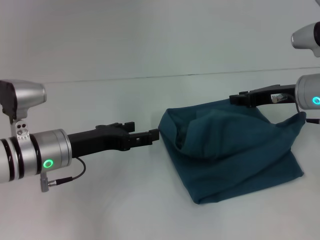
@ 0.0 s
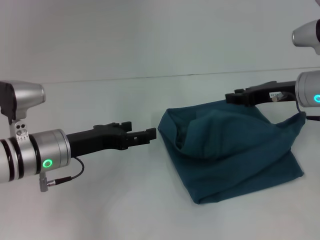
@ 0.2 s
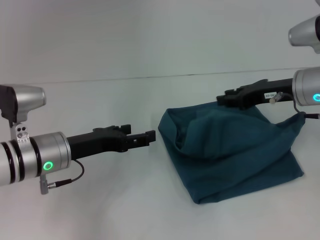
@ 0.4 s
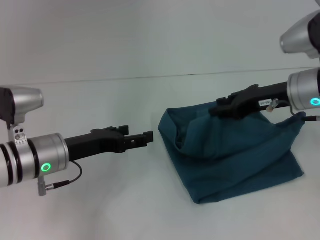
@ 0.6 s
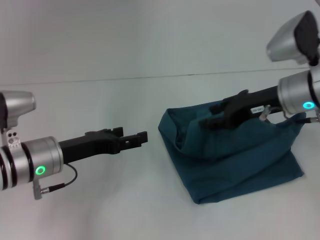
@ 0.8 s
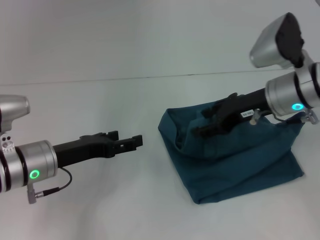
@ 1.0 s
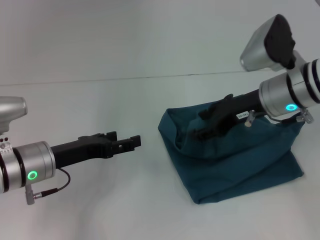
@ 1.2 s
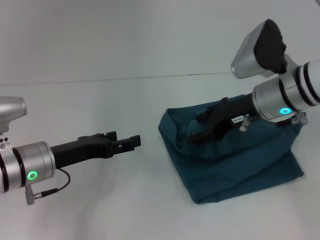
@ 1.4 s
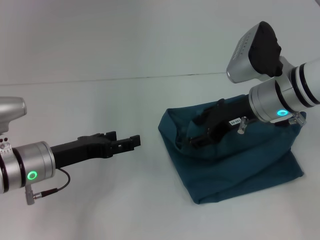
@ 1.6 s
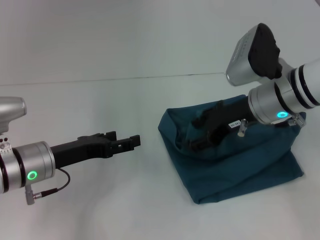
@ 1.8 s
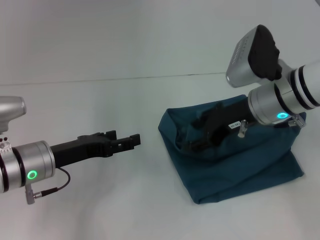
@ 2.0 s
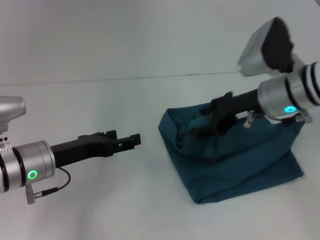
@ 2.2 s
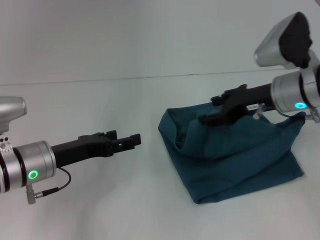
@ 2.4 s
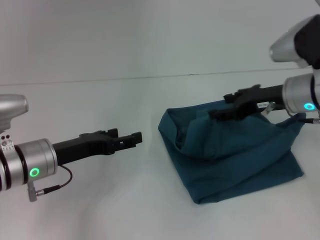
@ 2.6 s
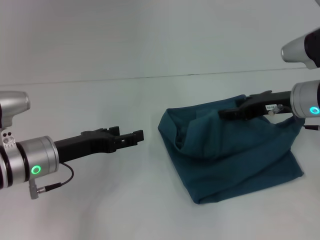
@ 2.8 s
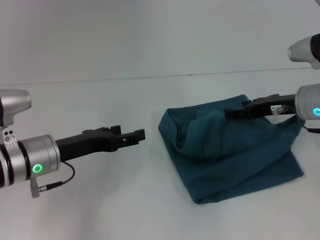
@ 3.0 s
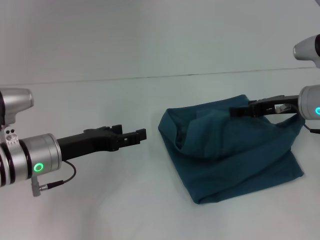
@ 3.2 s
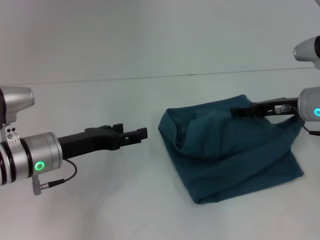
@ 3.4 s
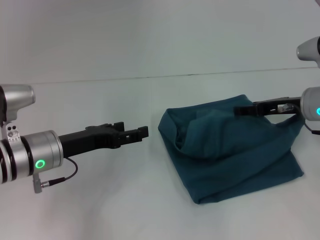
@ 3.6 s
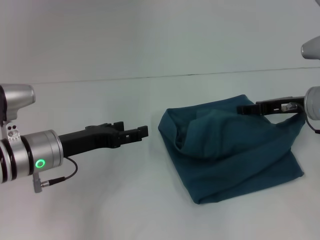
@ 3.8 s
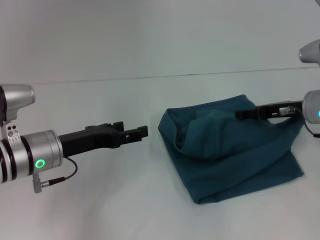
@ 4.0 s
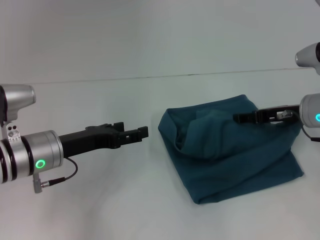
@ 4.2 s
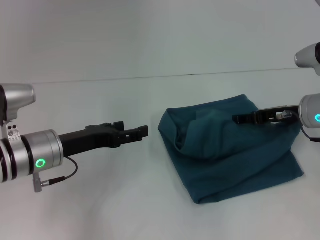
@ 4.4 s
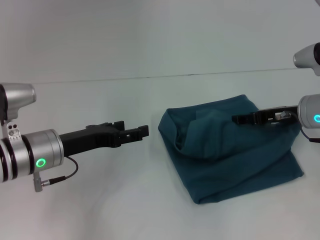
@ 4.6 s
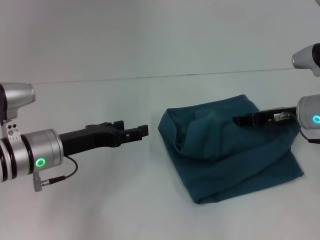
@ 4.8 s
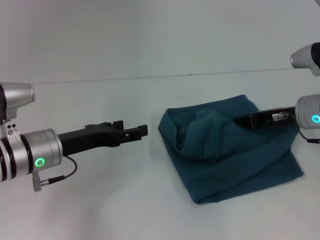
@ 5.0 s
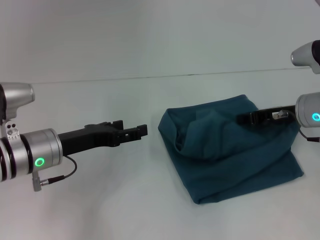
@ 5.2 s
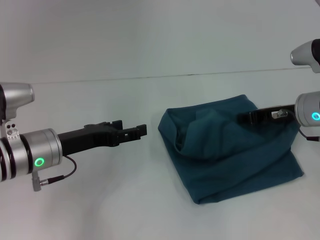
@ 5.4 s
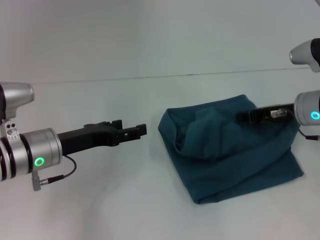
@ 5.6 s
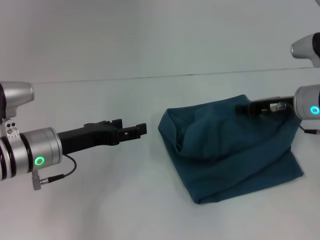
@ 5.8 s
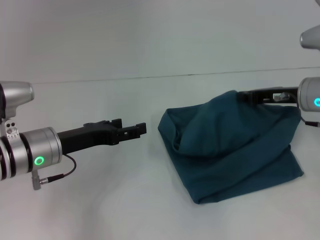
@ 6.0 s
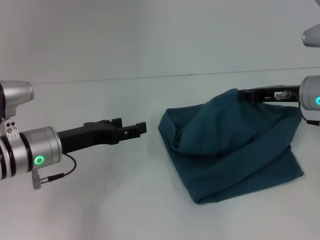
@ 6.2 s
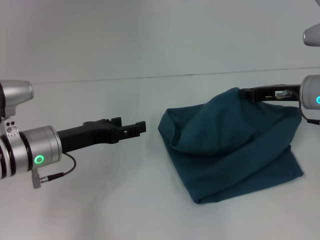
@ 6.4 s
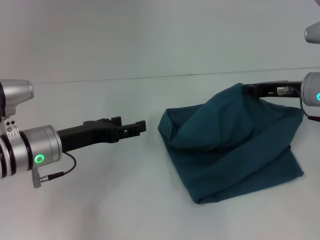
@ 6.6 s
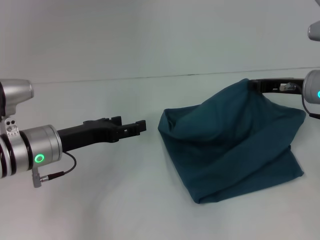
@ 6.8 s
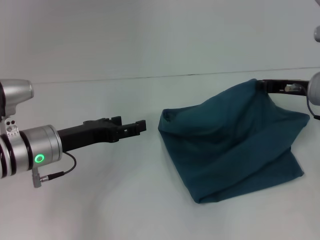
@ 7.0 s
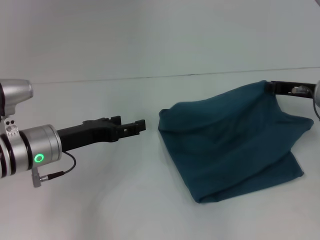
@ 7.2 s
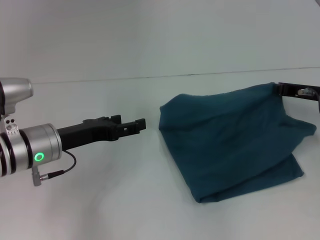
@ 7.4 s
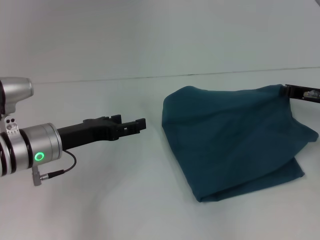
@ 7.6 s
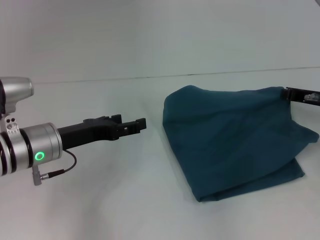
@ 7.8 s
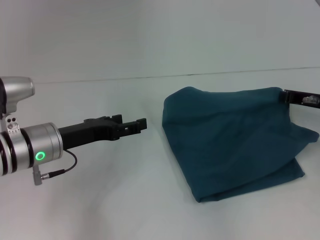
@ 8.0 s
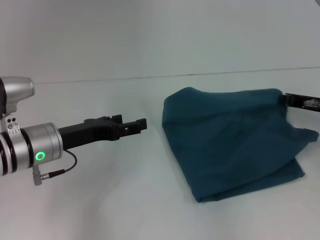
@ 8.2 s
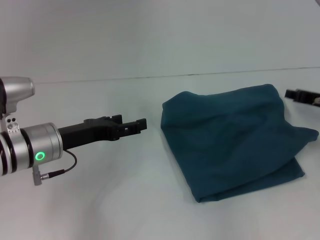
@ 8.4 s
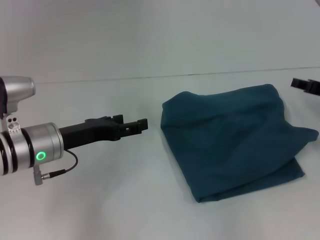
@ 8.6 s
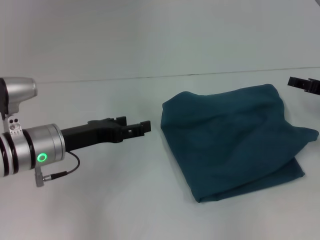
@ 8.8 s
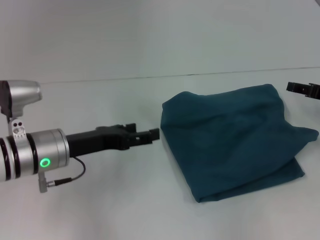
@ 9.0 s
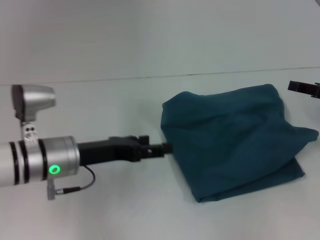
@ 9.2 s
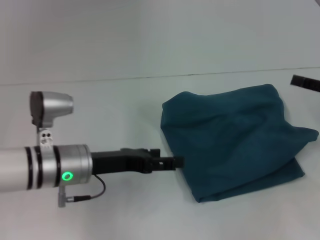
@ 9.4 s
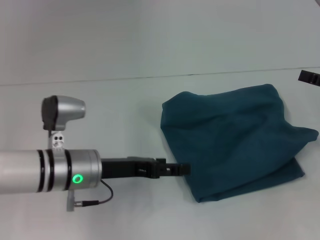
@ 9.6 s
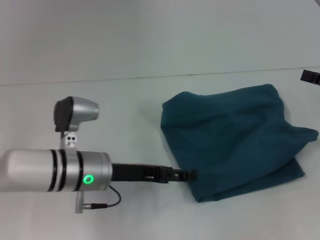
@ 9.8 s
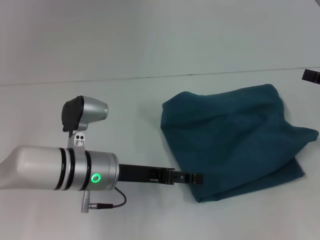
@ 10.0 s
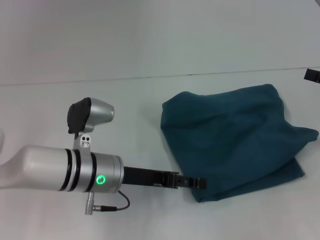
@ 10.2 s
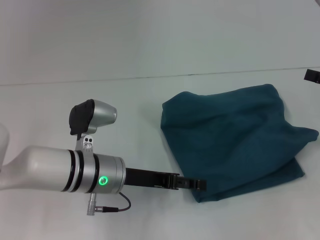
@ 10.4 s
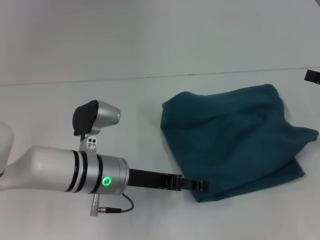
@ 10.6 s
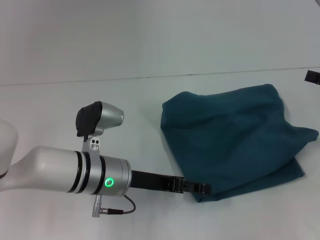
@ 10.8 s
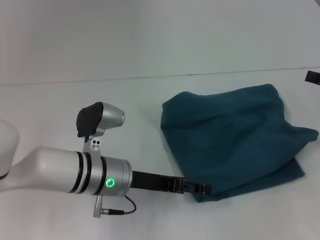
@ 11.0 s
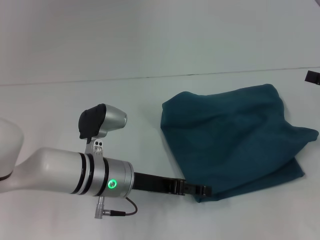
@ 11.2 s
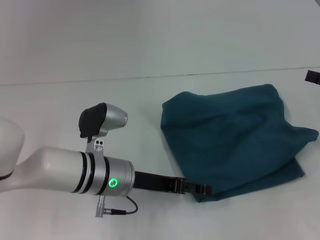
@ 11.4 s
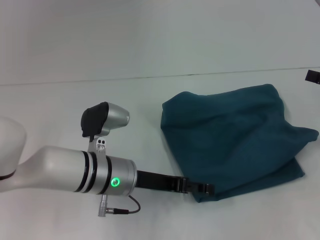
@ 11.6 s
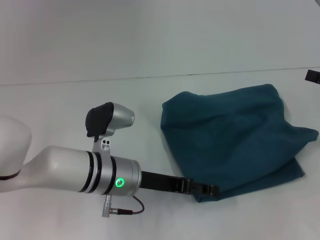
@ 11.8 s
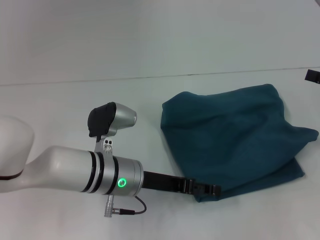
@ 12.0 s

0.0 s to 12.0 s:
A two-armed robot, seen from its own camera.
0.0 to 1.6 s: The right gripper travels to the left by approximately 10 cm, and opens.
1.6 to 3.0 s: The right gripper goes some 10 cm to the right.
3.0 to 4.4 s: The grippers make only small movements.
4.4 to 6.0 s: The right gripper closes up.
6.0 to 7.6 s: The right gripper ends up roughly 5 cm from where it was.
7.6 to 9.0 s: The right gripper shifts by about 5 cm, and opens up.
9.0 to 10.4 s: The right gripper shifts by about 5 cm, and opens up. Meanwhile the left gripper travels to the right by about 10 cm.
10.4 to 12.0 s: The grippers stay close to where they were, moving slightly.

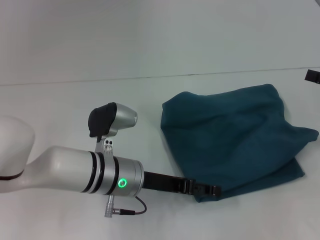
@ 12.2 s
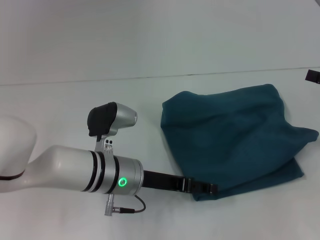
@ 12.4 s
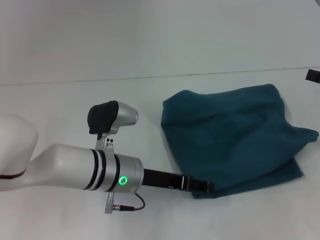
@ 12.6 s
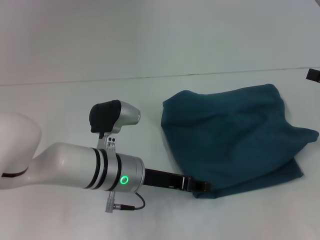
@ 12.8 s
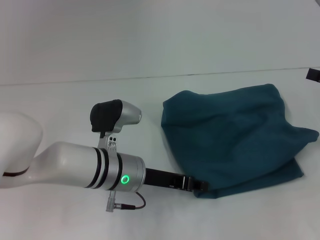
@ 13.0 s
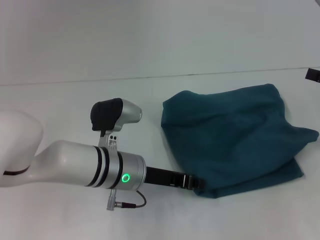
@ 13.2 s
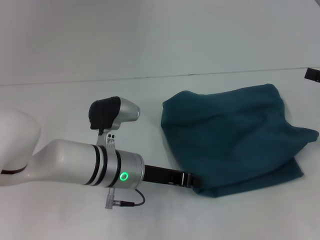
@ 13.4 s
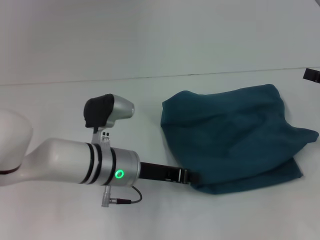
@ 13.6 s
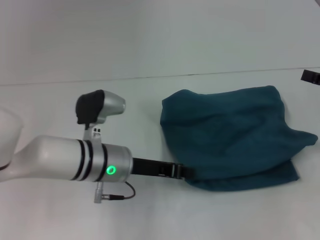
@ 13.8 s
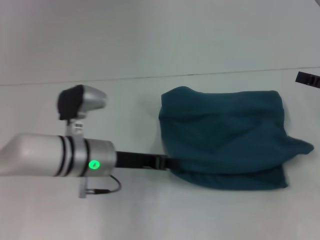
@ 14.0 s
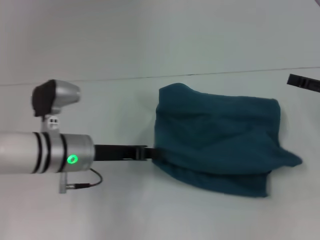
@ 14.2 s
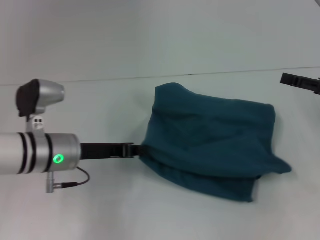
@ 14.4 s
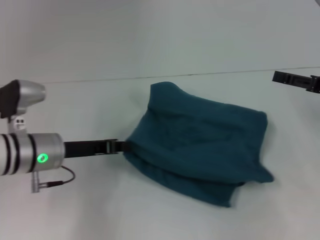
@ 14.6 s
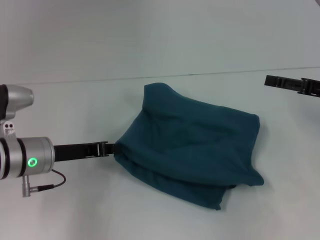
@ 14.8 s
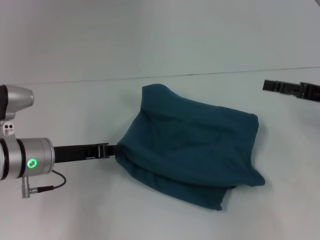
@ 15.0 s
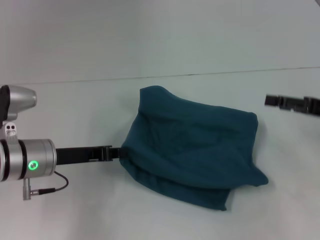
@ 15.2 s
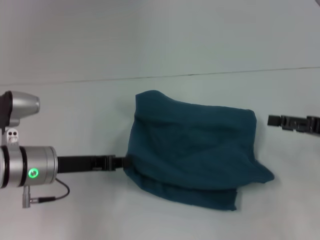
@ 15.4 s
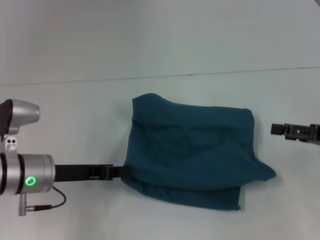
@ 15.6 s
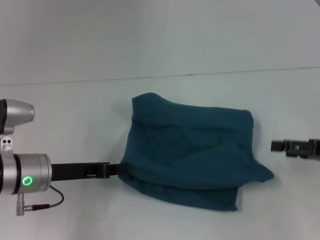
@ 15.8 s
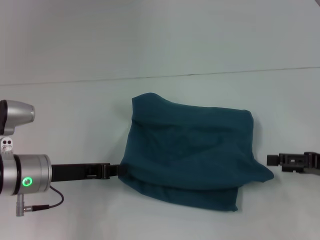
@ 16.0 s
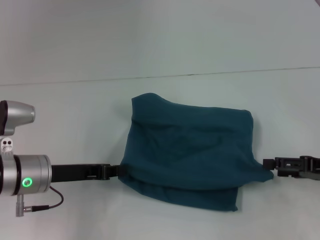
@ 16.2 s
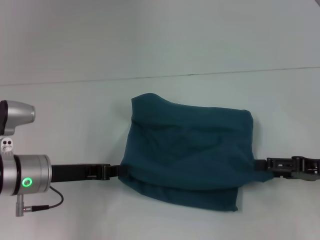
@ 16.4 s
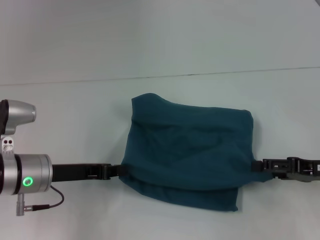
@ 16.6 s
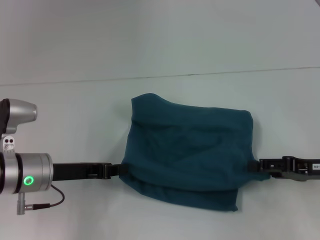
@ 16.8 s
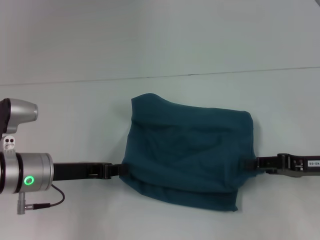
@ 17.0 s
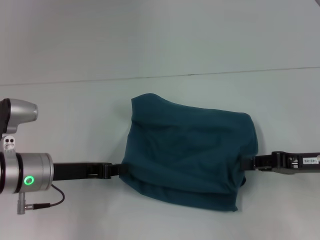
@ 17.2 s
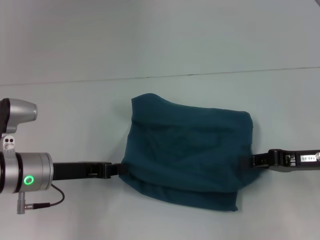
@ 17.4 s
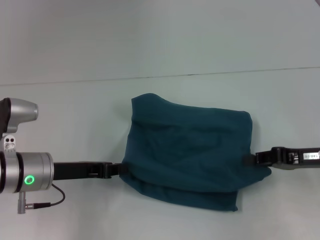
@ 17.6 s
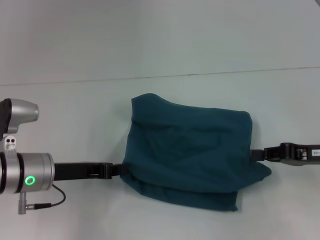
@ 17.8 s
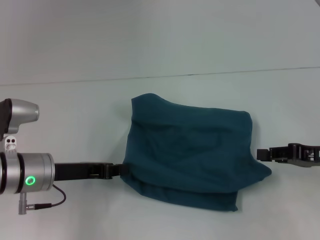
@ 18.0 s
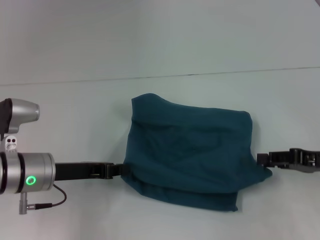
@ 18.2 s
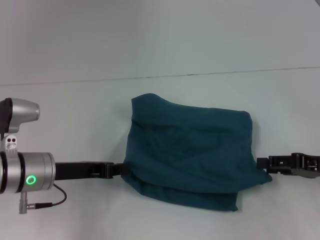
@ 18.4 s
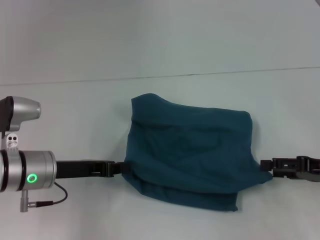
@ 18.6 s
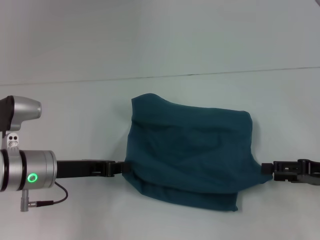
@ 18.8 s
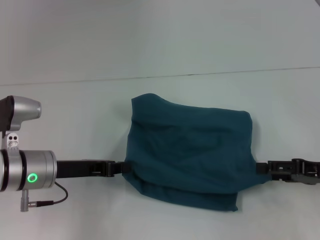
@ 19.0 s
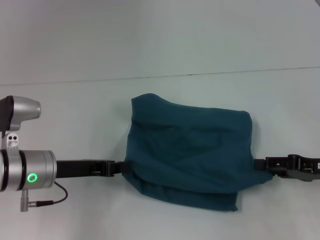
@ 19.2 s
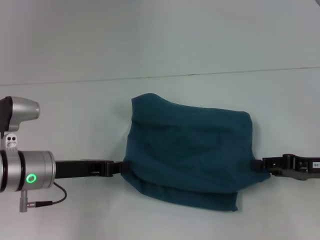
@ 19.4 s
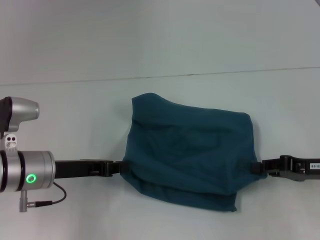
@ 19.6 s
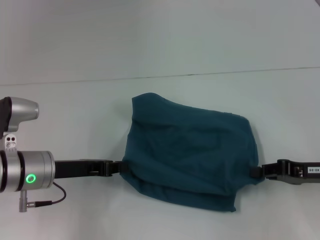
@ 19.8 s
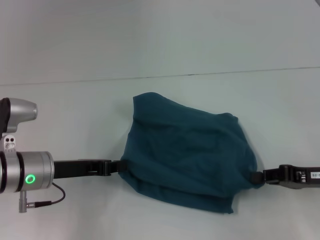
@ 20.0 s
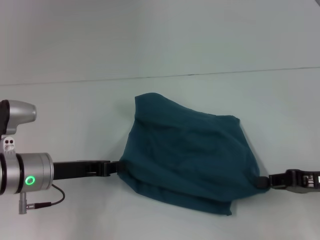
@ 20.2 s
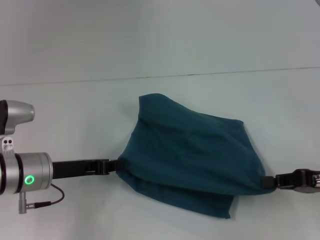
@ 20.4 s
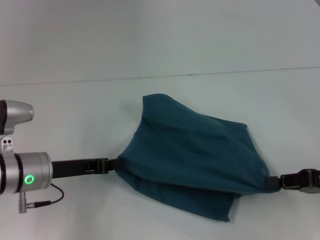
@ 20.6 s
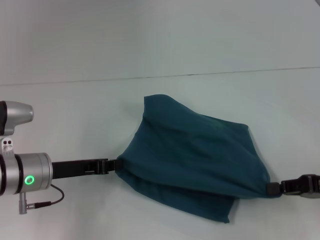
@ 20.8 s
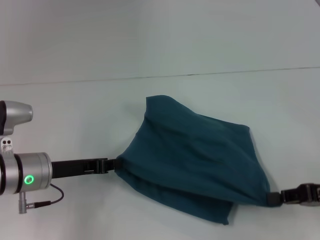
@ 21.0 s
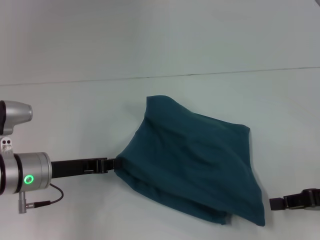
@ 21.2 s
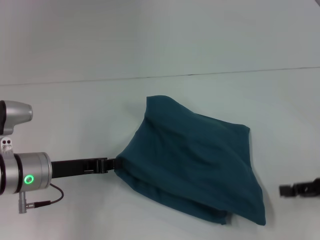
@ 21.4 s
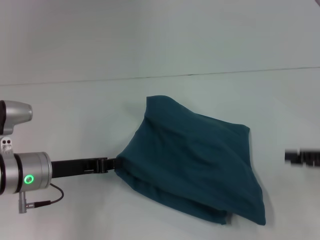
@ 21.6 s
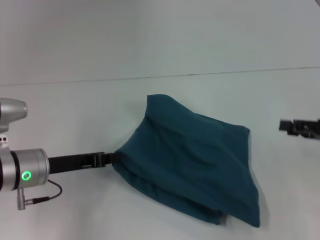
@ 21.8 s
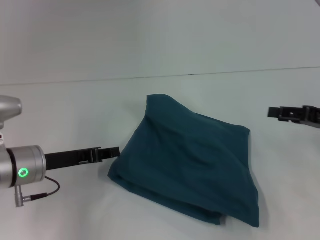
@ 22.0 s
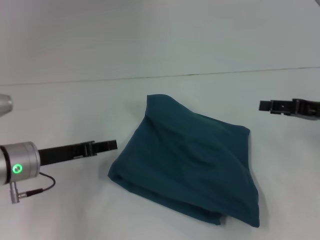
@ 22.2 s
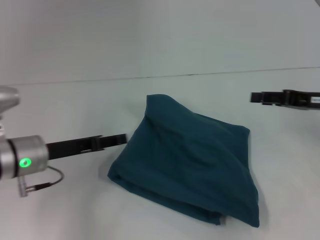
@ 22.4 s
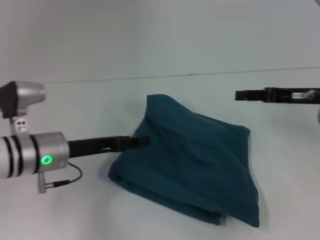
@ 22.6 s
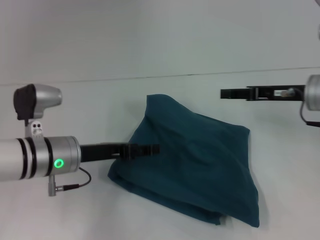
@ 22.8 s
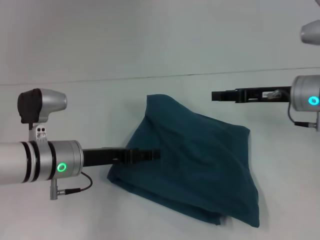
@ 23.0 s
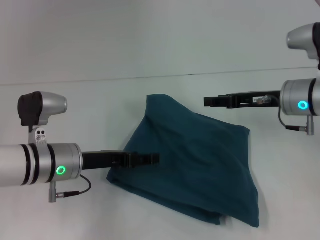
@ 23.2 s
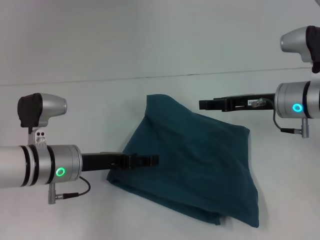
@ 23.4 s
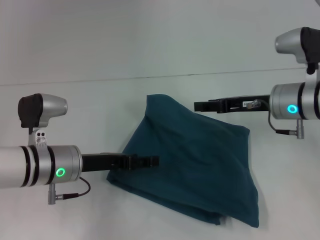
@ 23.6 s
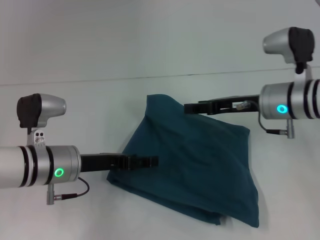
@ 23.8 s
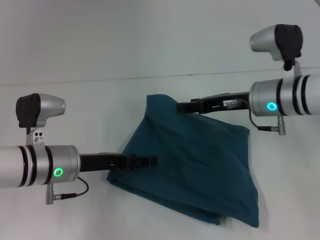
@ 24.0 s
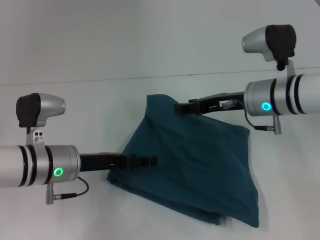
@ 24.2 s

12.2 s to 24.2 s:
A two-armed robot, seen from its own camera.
12.2 to 13.8 s: The left gripper closes.
13.8 to 15.2 s: The left gripper is displaced to the left by roughly 10 cm.
15.2 to 16.6 s: The right gripper shifts approximately 5 cm downward.
16.6 to 18.2 s: The right gripper closes its fingers.
18.2 to 19.8 s: The right gripper opens and closes again.
19.8 to 21.2 s: There are only small adjustments of the grippers.
21.2 to 22.6 s: The right gripper shifts roughly 15 cm forward and upward, and opens. Meanwhile the left gripper opens its fingers.
22.6 to 24.2 s: The right gripper goes roughly 10 cm to the left.
